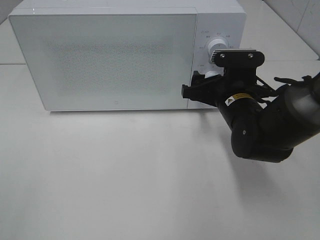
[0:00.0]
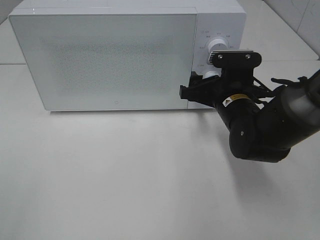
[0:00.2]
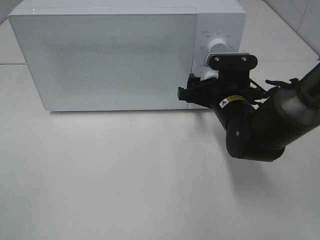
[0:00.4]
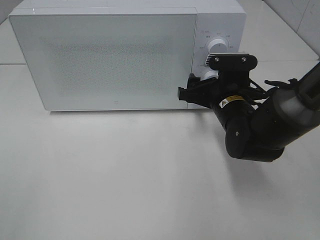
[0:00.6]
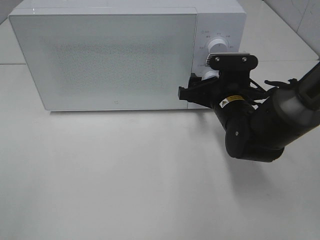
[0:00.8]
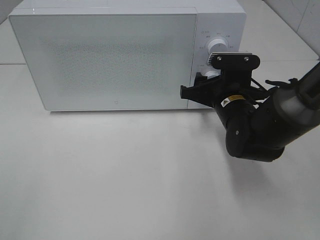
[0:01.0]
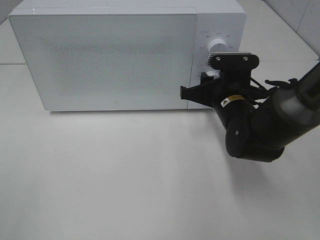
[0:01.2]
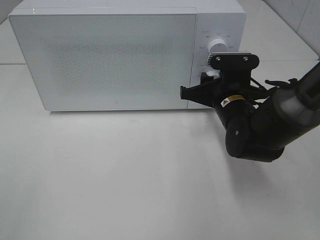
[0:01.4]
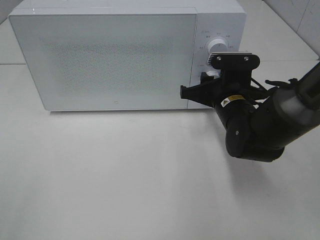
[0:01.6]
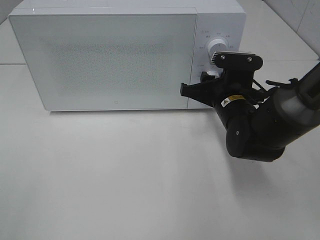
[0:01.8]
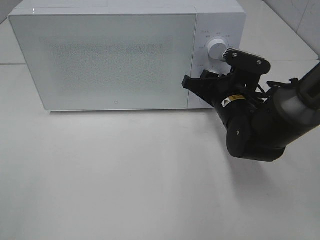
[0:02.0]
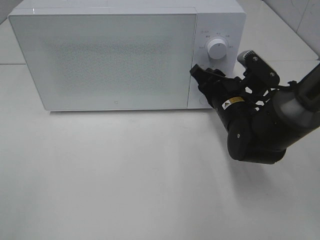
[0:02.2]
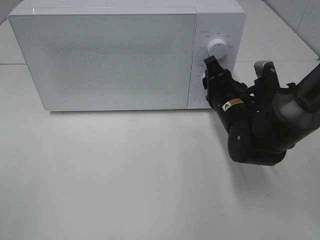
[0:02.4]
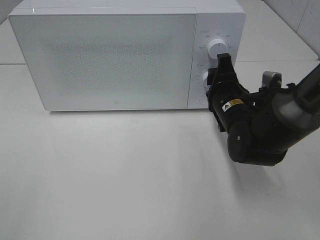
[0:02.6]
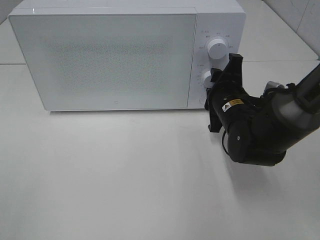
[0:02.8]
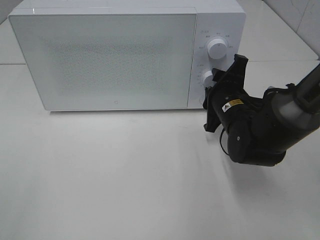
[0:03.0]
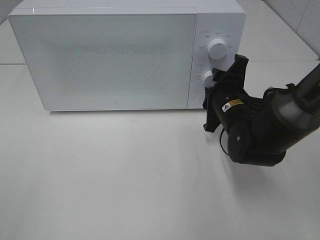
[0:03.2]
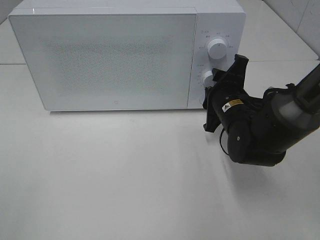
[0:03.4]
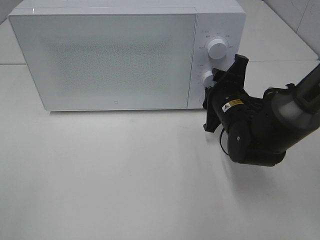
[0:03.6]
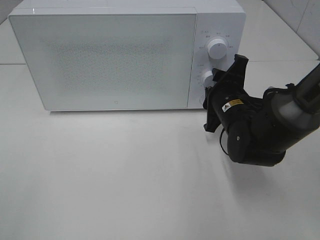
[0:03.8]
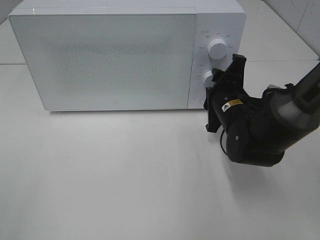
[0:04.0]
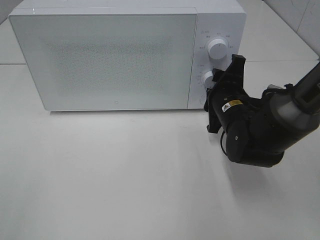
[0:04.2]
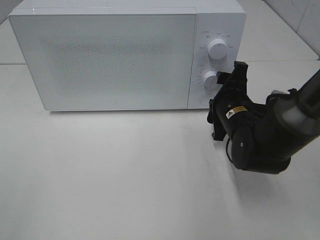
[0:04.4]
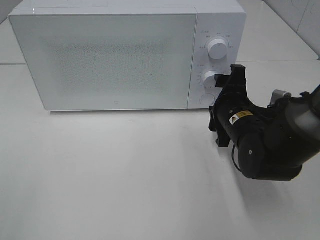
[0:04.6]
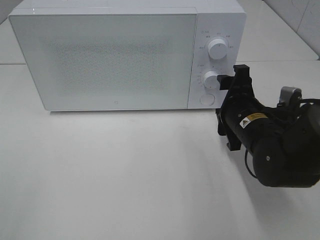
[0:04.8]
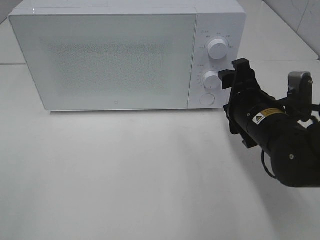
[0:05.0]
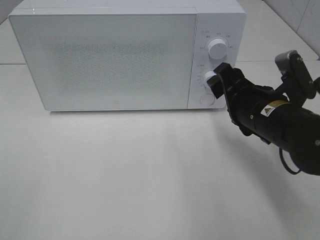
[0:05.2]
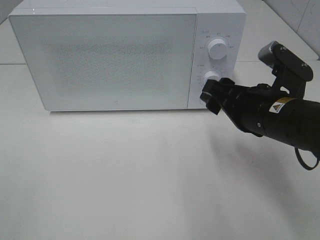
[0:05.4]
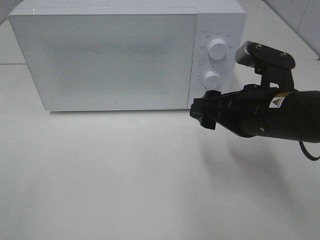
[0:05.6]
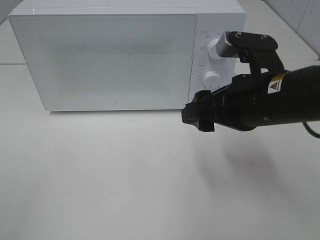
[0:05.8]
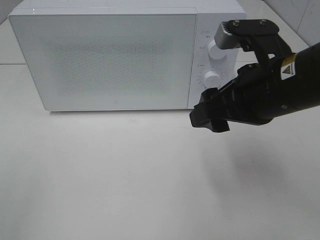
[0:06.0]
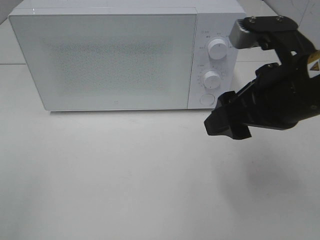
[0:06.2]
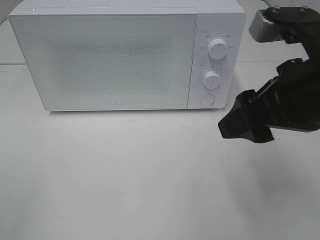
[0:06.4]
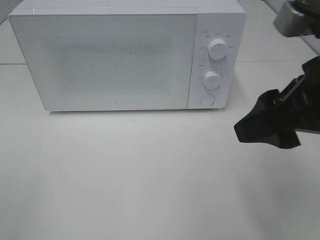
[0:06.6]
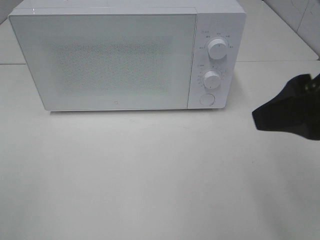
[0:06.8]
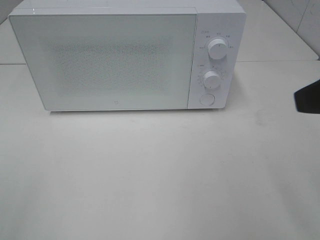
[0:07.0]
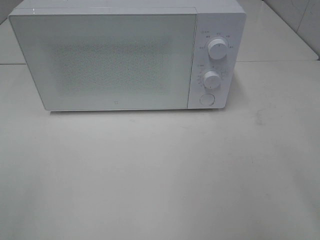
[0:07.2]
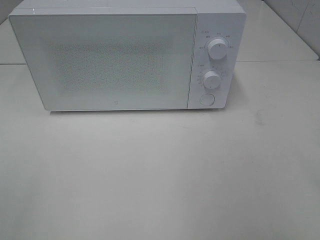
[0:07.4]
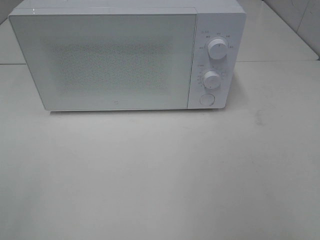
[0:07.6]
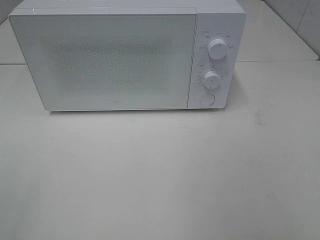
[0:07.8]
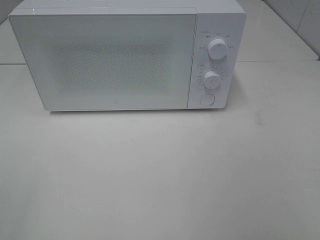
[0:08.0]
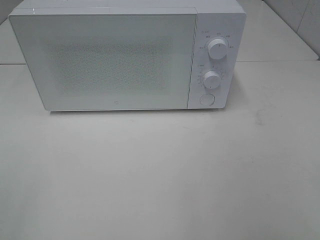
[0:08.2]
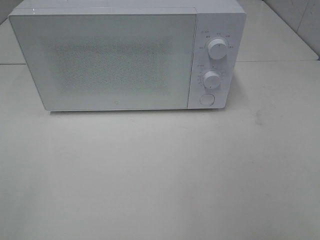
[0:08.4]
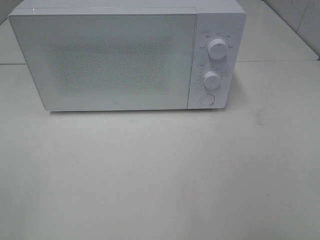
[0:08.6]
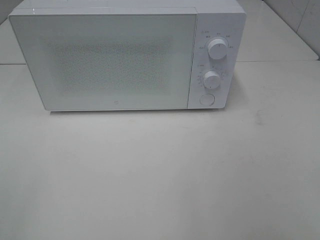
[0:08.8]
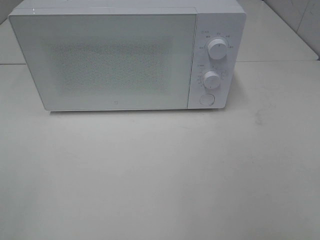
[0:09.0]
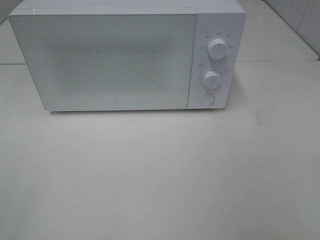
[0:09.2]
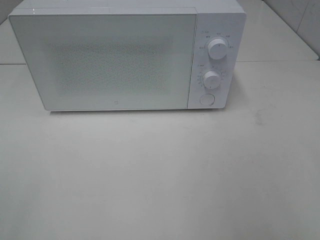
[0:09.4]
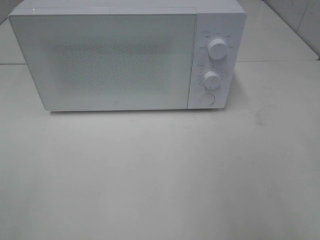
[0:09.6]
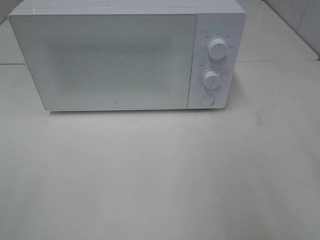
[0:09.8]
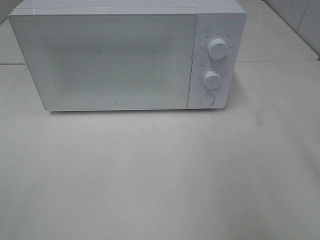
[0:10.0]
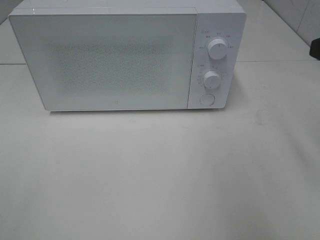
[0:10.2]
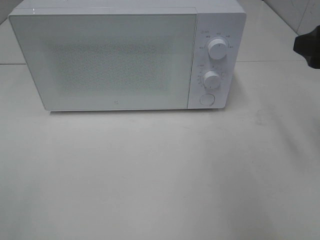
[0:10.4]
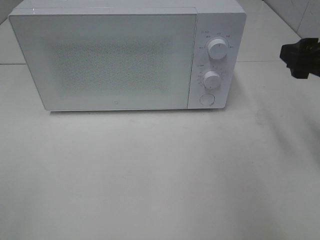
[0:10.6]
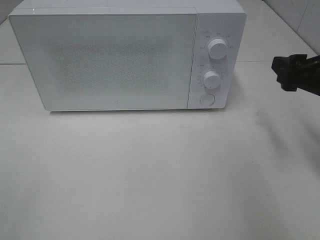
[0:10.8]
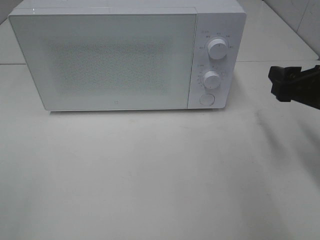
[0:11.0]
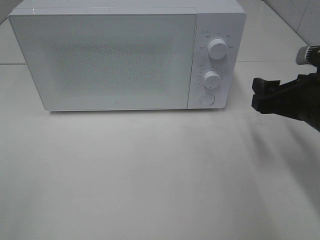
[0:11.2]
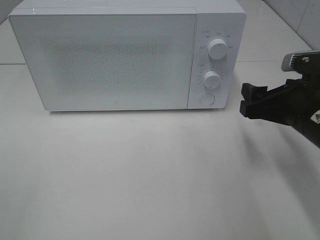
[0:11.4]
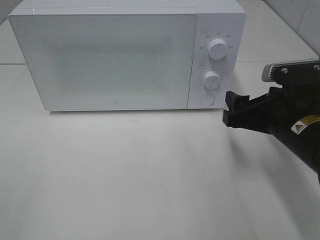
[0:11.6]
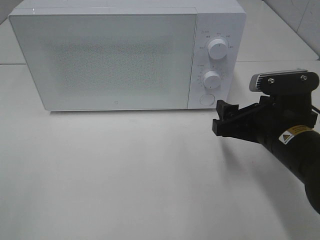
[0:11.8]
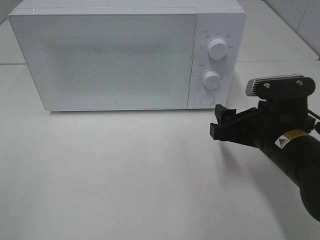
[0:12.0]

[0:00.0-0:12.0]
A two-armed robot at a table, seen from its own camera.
Task of the whole recording: Heat the burger.
Step, 0:00.0 to 0:04.4: Right hand: twist timer button.
0:00.0 to 0:01.6: The right gripper closes up.
0:03.0 to 0:04.4: The grippers make only small movements.
0:04.4 to 0:06.0: The right gripper travels upward and backward by roughly 15 cm.
0:06.0 to 0:07.6: The right gripper travels backward, to the right and upward by roughly 25 cm.
0:09.0 to 0:10.4: The right gripper moves forward, about 25 cm.
0:10.4 to 0:12.0: The right gripper is displaced downward and to the left by about 15 cm.

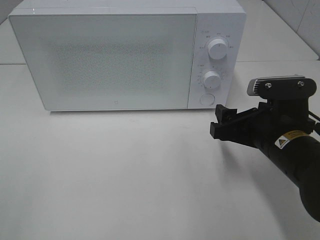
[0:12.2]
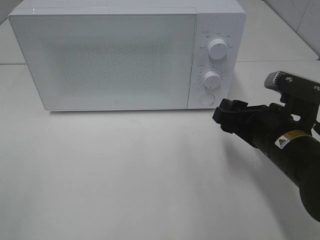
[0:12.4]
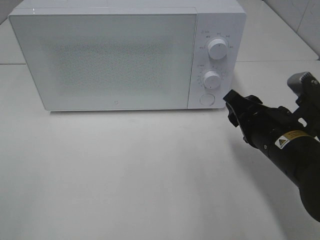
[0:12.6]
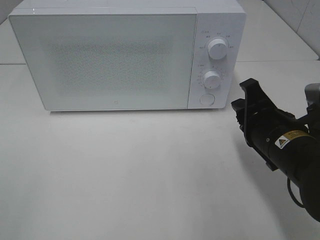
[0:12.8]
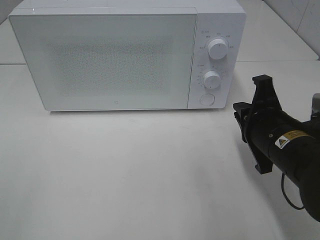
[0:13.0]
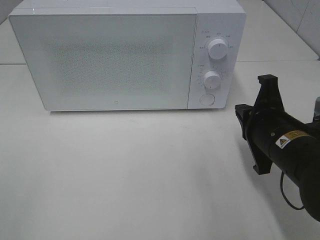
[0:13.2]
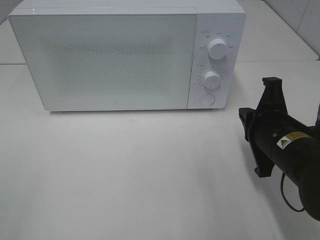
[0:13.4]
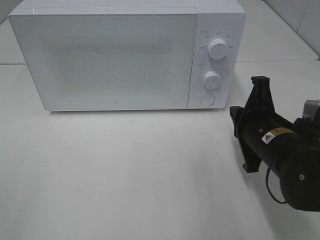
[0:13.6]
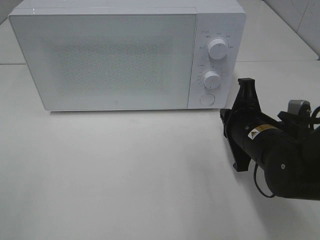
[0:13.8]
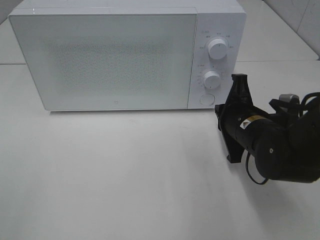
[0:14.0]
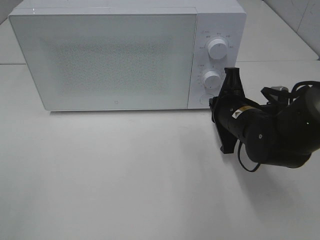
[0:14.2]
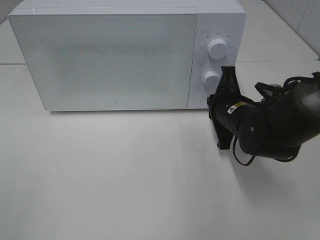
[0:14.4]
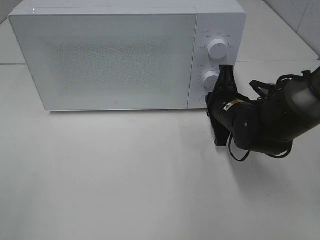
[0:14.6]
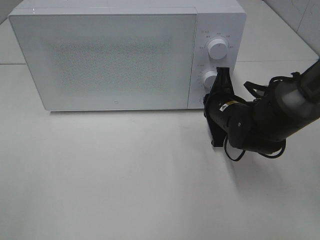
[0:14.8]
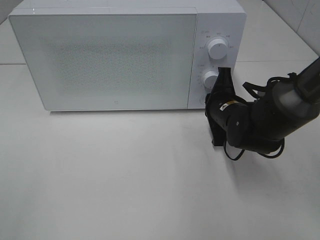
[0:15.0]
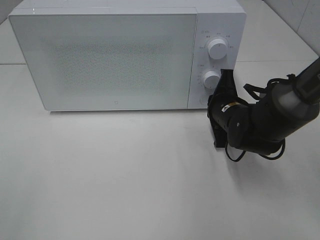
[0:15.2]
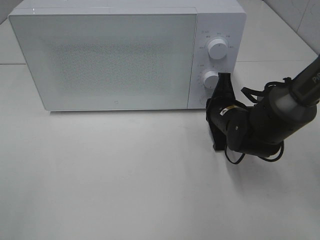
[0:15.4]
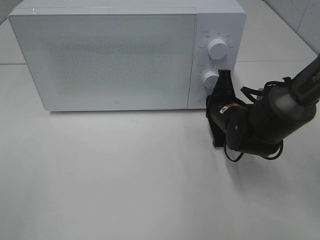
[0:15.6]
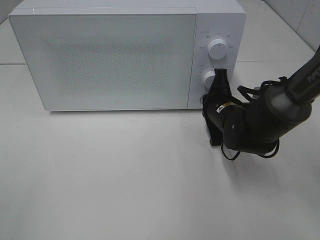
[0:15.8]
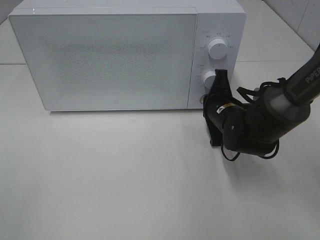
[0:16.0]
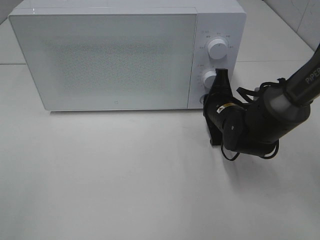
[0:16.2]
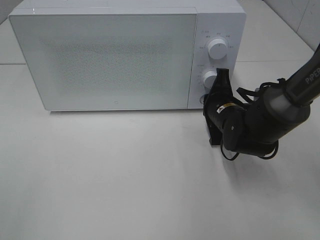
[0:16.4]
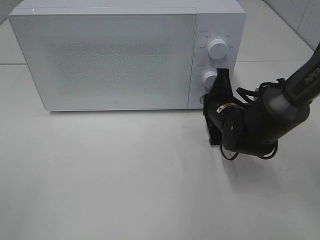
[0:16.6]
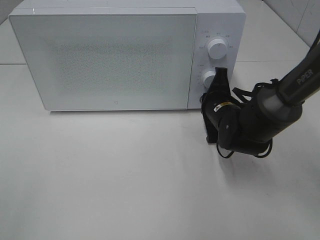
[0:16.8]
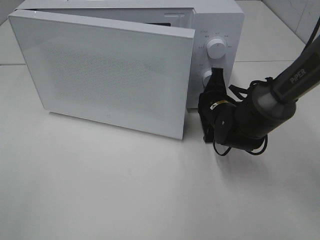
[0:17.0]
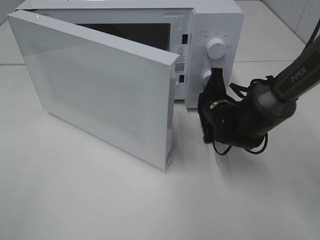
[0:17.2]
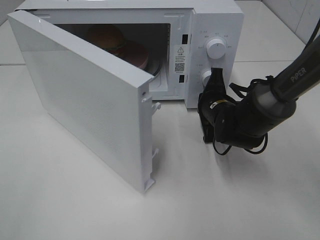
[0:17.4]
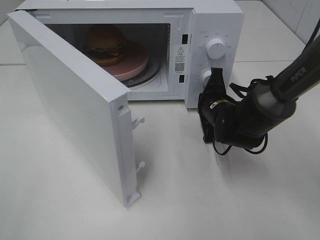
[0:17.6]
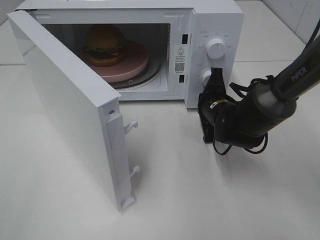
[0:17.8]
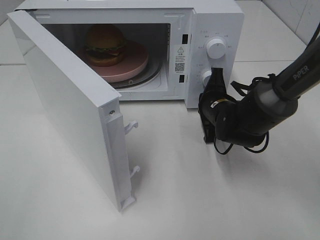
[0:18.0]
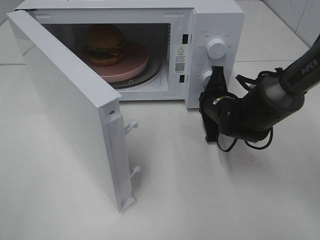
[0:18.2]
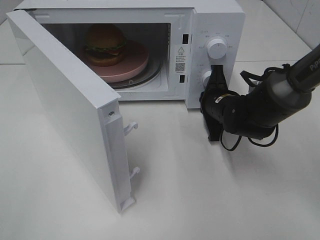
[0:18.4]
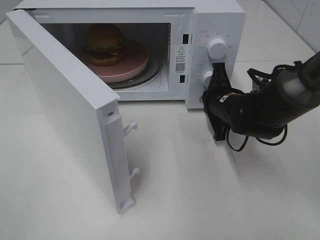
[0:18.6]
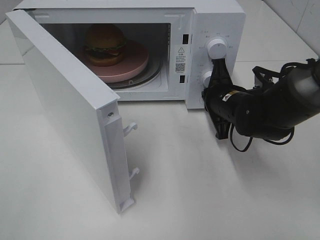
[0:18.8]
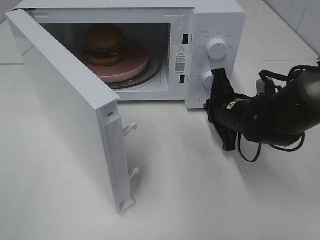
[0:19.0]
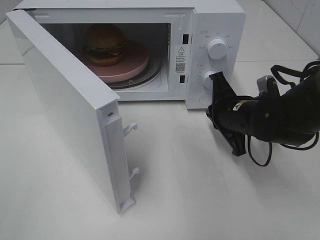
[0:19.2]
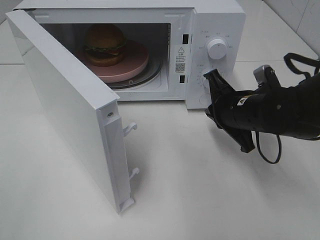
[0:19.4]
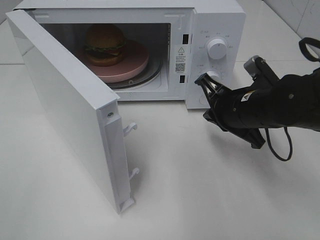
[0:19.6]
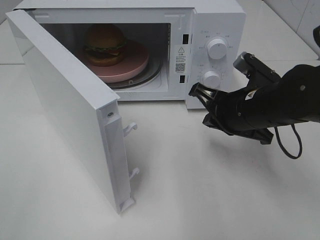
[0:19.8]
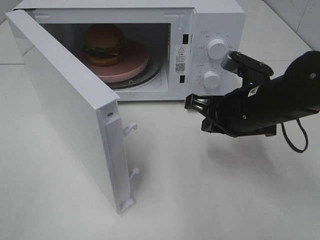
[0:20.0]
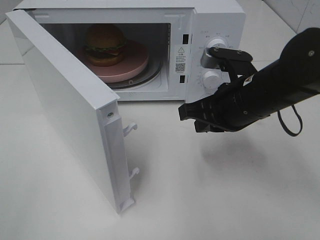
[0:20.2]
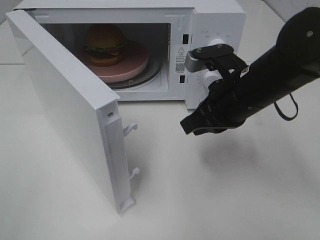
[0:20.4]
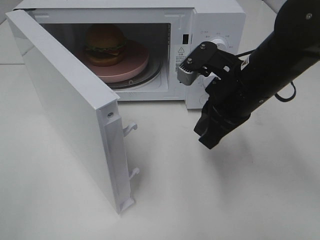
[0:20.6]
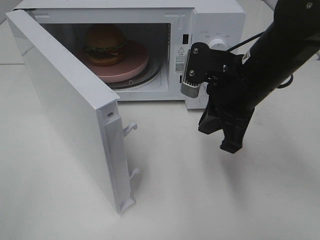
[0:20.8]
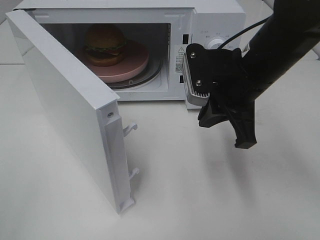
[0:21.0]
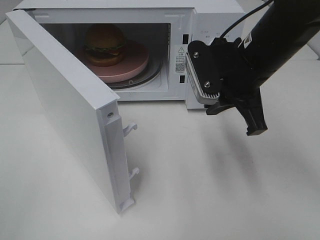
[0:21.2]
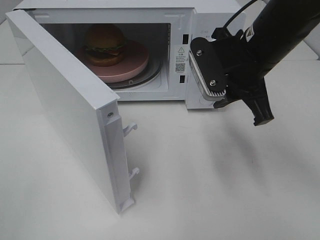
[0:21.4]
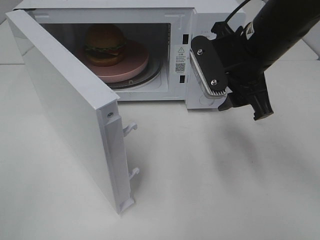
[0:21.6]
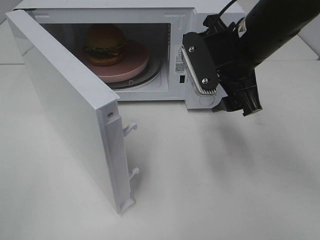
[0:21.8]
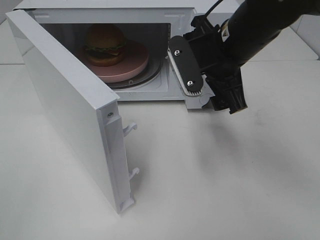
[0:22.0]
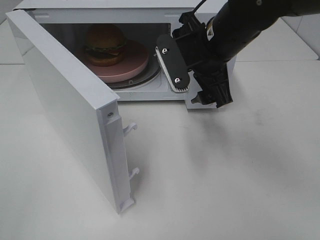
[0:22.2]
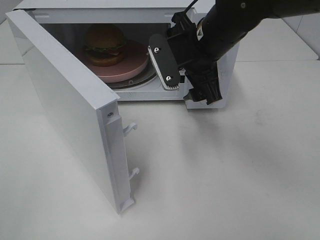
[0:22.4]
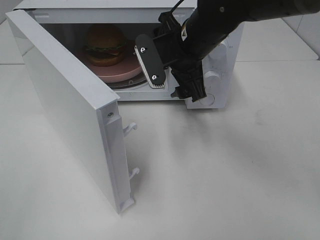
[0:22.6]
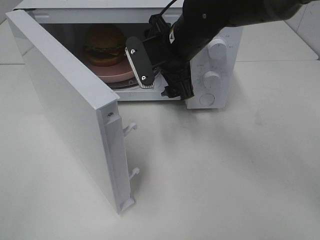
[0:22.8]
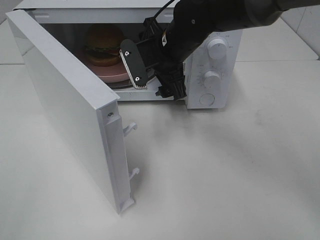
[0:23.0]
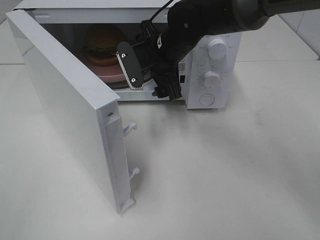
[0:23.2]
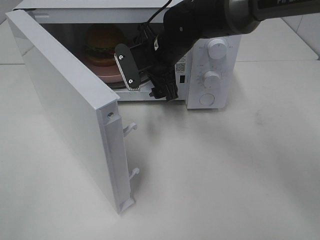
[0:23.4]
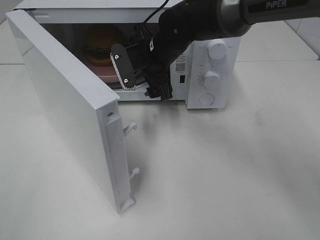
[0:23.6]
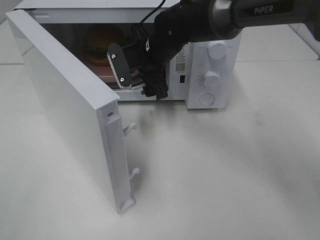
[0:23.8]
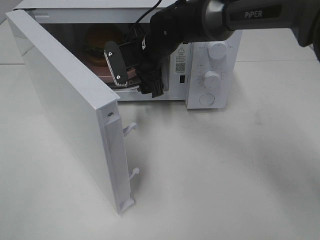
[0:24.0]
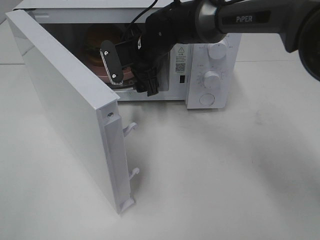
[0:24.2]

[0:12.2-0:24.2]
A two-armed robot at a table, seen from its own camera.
Task of the whole recording: Heat the burger.
Step, 0:12.2 to 0:18.8: Right hand: press the switch.
0:12.2 to 0:13.8: The right gripper closes up.
0:13.8 to 0:15.2: The right gripper travels forward by some 10 cm.
0:15.2 to 0:16.6: Both grippers stay about where they are.
0:18.2 to 0:19.8: The right gripper is displaced backward and upward by some 10 cm.
0:19.8 to 0:21.2: The right gripper heads upward, covering some 10 cm.
0:21.2 to 0:22.6: The right gripper is displaced to the left and forward by approximately 10 cm, and opens its fingers.
0:22.6 to 0:24.2: The right gripper heads forward, to the left and downward, covering some 10 cm.
